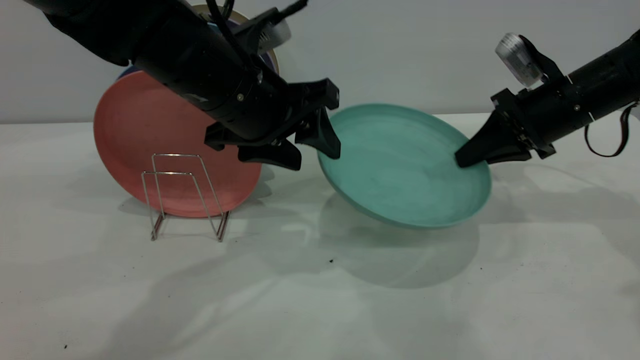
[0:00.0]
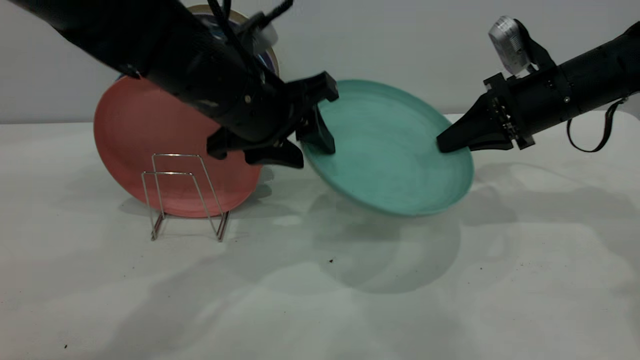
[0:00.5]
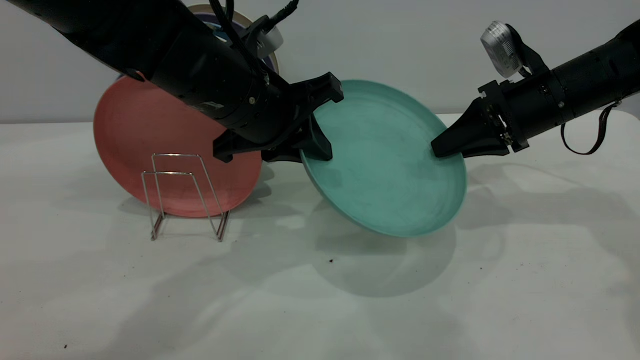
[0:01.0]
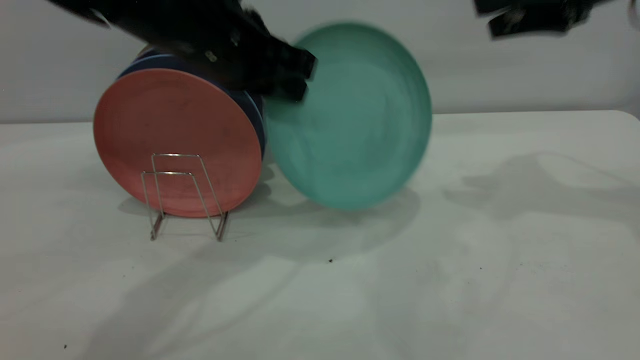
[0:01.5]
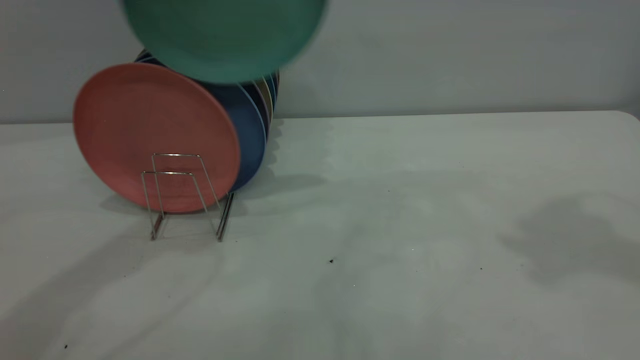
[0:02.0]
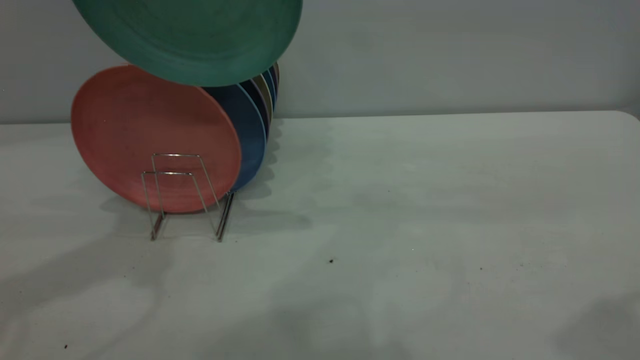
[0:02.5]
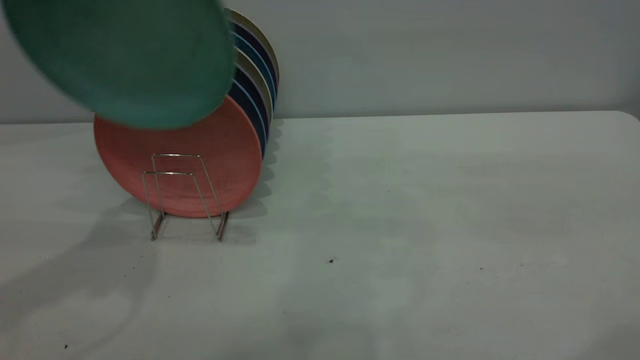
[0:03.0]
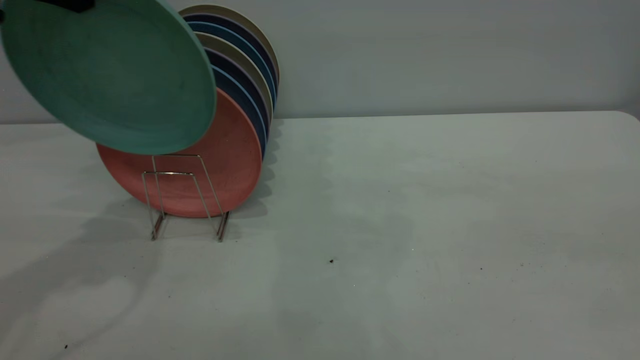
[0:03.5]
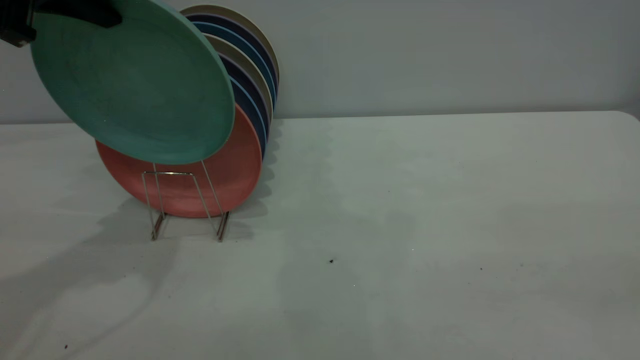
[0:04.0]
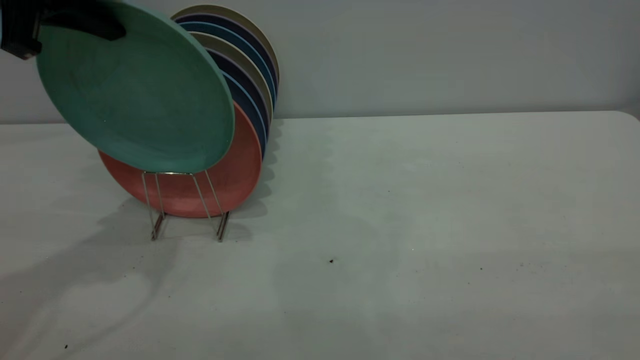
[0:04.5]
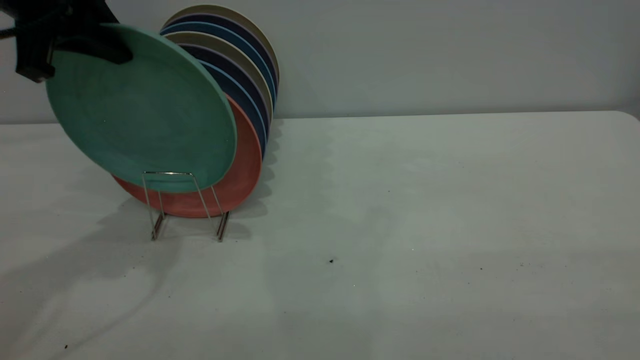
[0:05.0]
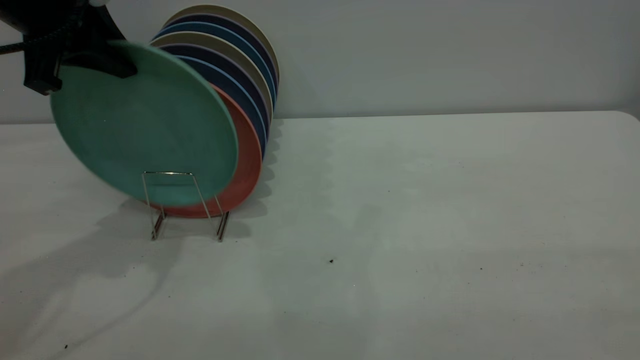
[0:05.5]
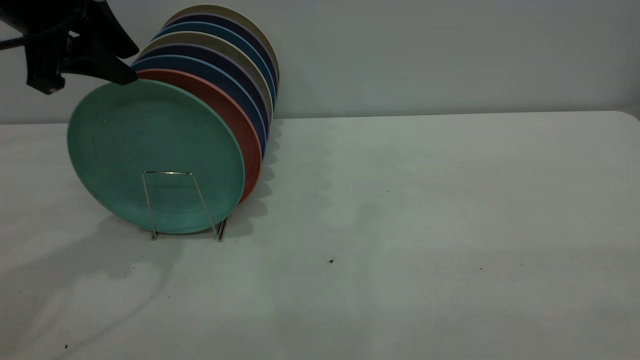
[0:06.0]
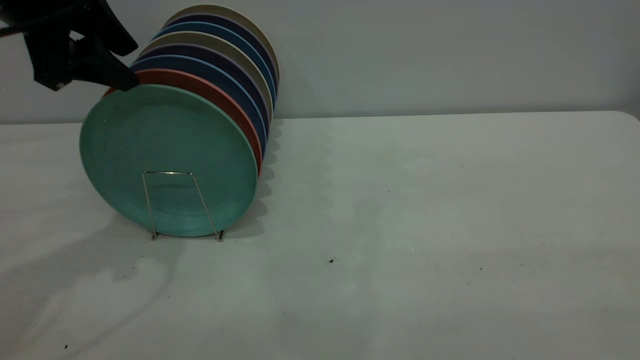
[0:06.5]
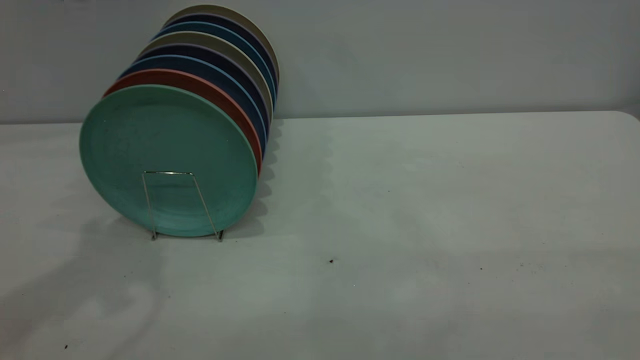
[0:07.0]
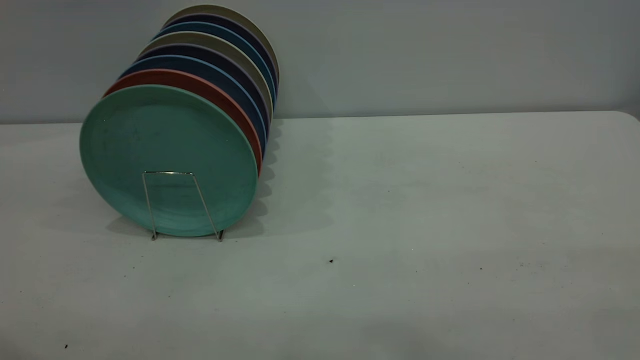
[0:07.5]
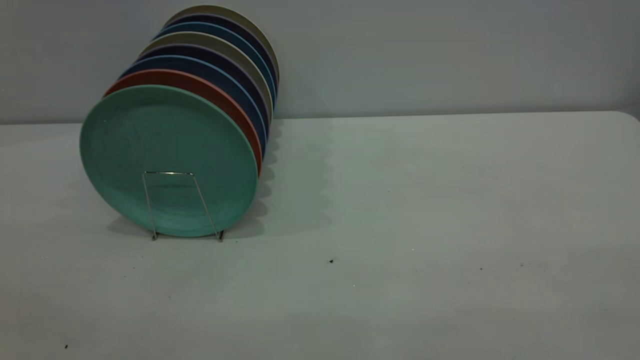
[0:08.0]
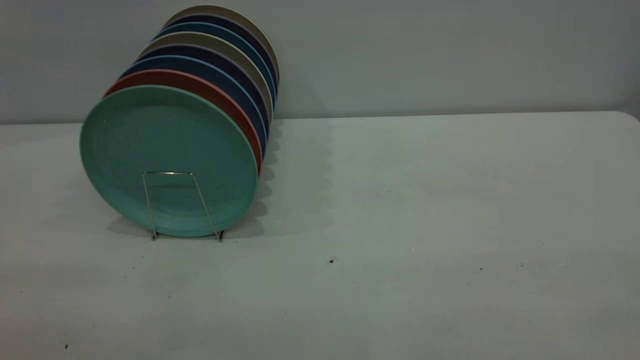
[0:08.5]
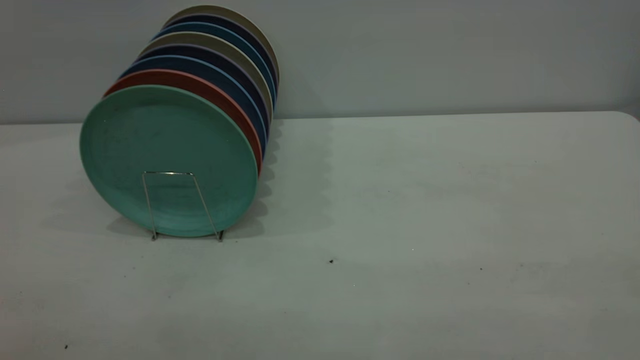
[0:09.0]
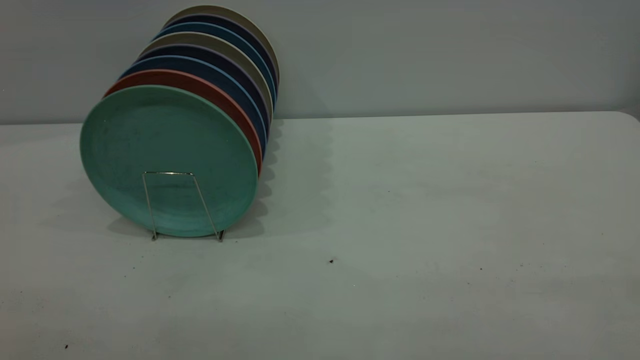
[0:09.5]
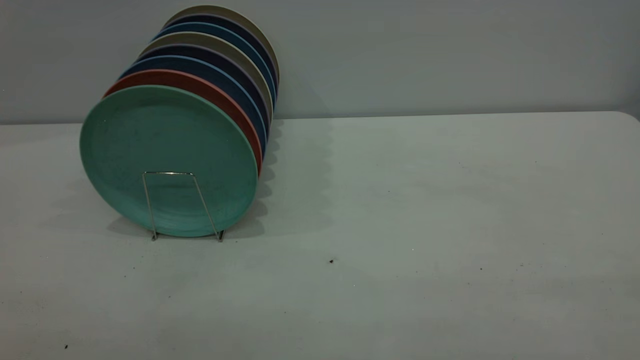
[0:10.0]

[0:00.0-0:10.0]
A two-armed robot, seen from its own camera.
Task of the whole recording: the right gripper grasp the green plate, the right gripper pass the green plate to the left gripper, and the left gripper place the green plate on the plate rack.
Step, 0:00.0 to 0:01.0: Pass the plate from the right gripper to the left gripper.
Step, 0:01.5 to 0:06.5: Place the plate on the shelf.
0:00.0 to 0:02.0: The left gripper shifts about 20 cm upward and to the left, and closes up. The right gripper shifts some 30 cm upward and backward, and opens its fingers.
0:02.0 to 0:04.0: The right gripper travels backward by approximately 30 cm.
0:04.0 to 0:06.0: The left gripper opens its fingers.
0:06.0 to 0:08.0: The left gripper shifts some 30 cm backward.
